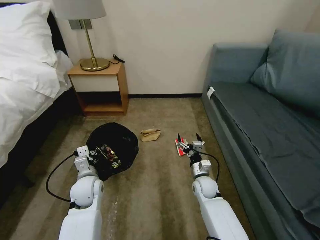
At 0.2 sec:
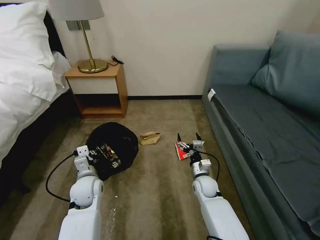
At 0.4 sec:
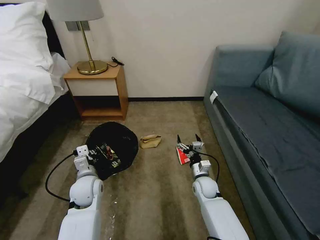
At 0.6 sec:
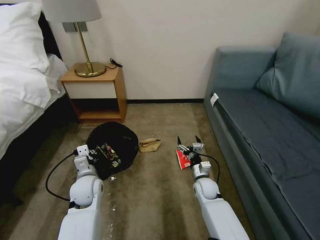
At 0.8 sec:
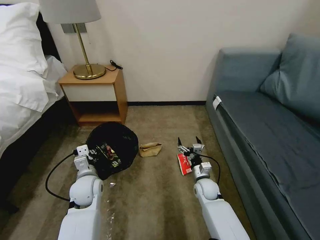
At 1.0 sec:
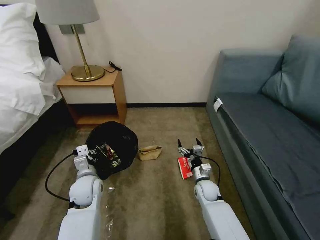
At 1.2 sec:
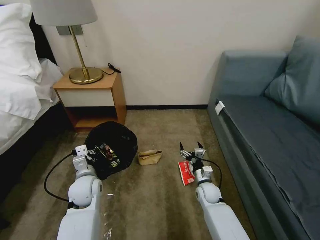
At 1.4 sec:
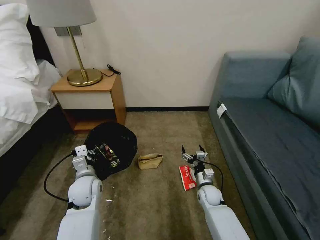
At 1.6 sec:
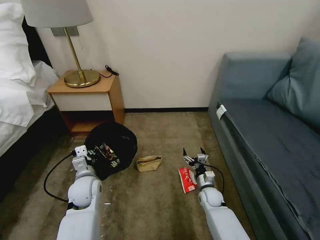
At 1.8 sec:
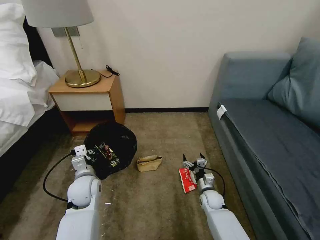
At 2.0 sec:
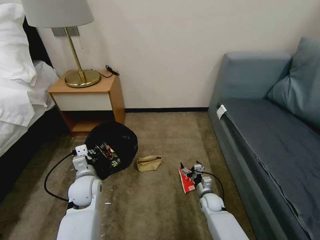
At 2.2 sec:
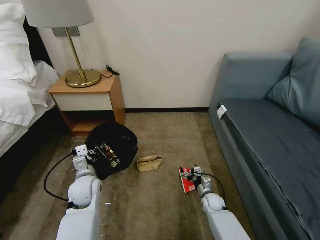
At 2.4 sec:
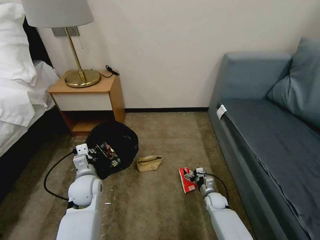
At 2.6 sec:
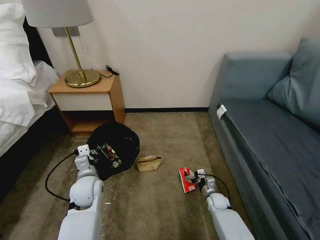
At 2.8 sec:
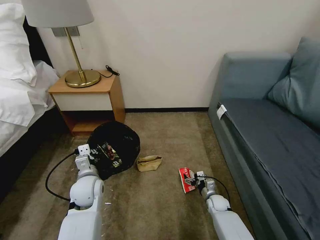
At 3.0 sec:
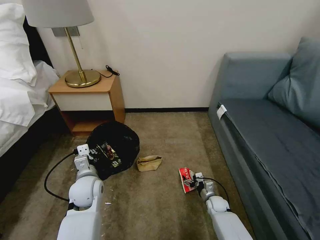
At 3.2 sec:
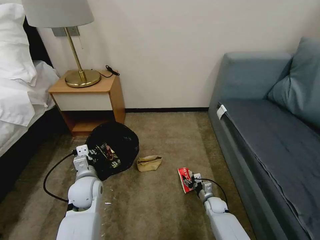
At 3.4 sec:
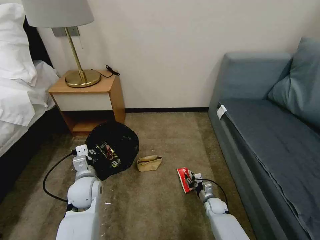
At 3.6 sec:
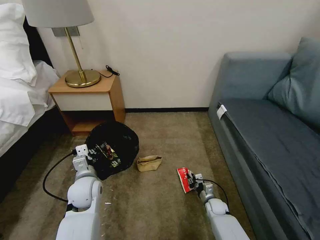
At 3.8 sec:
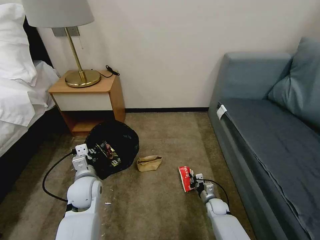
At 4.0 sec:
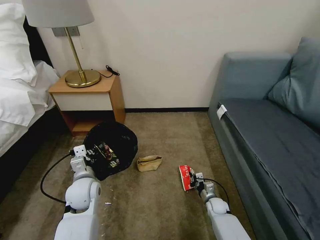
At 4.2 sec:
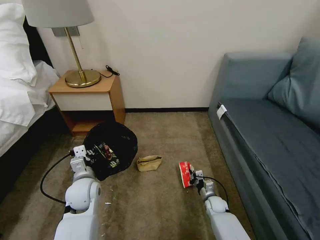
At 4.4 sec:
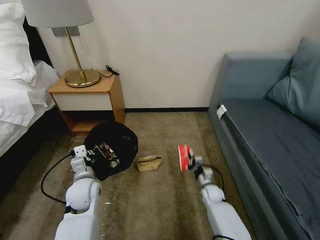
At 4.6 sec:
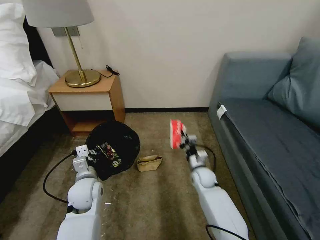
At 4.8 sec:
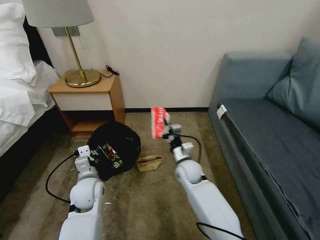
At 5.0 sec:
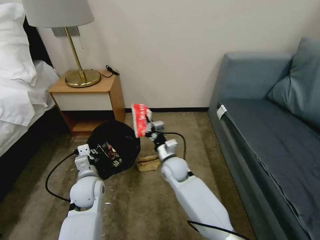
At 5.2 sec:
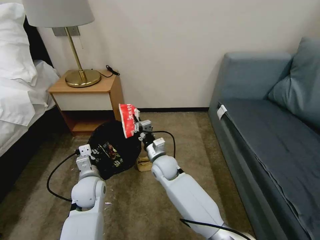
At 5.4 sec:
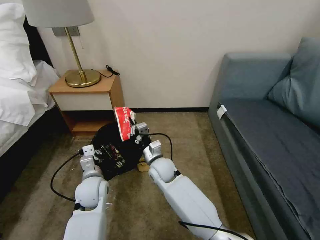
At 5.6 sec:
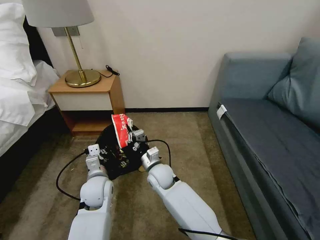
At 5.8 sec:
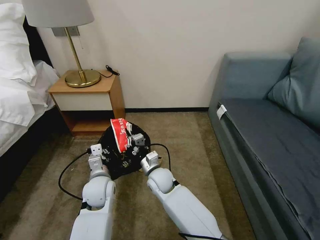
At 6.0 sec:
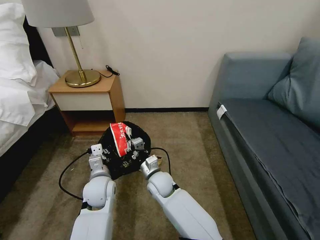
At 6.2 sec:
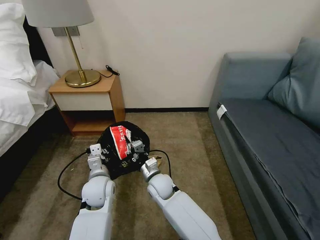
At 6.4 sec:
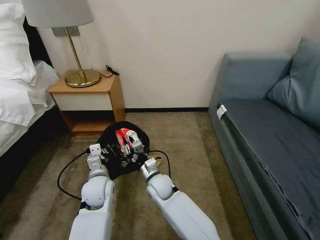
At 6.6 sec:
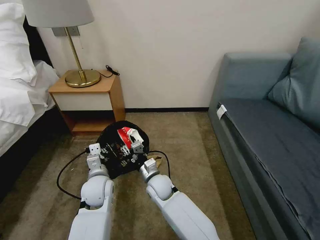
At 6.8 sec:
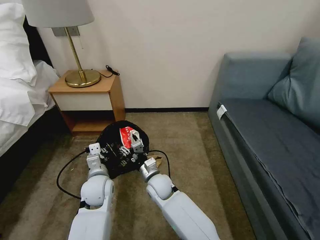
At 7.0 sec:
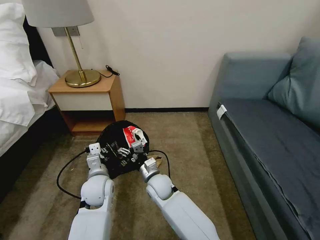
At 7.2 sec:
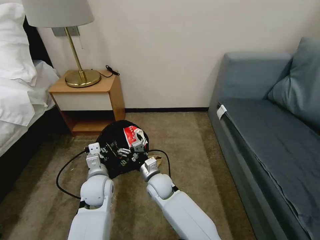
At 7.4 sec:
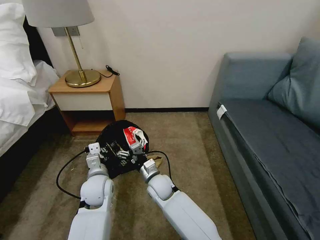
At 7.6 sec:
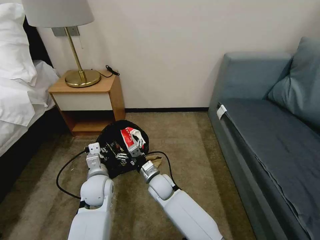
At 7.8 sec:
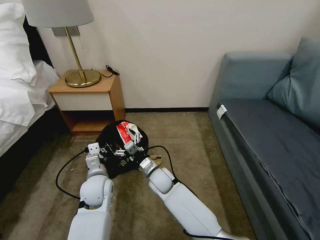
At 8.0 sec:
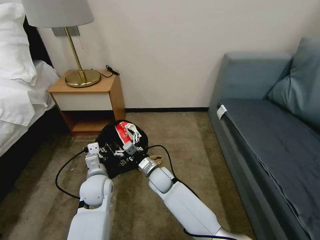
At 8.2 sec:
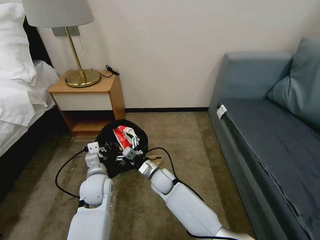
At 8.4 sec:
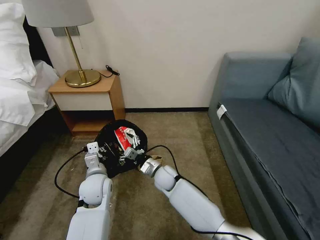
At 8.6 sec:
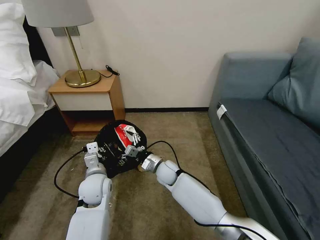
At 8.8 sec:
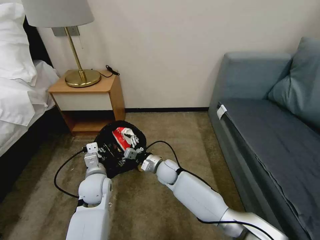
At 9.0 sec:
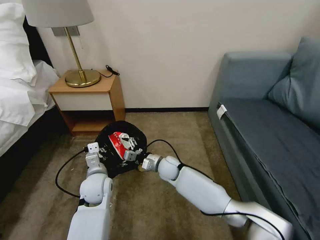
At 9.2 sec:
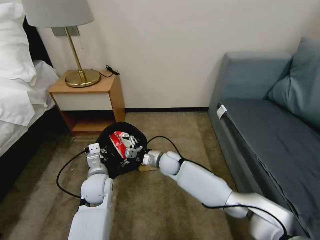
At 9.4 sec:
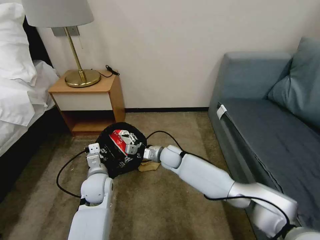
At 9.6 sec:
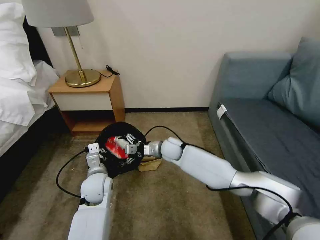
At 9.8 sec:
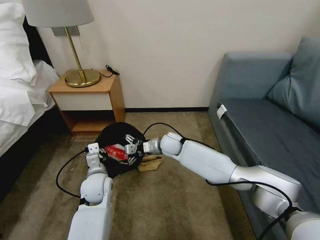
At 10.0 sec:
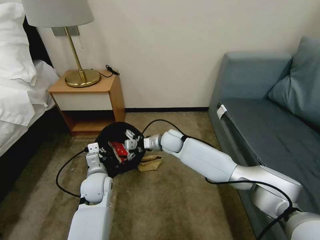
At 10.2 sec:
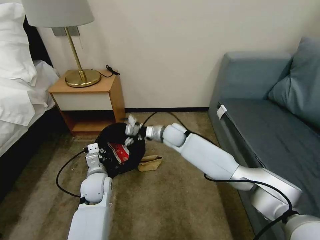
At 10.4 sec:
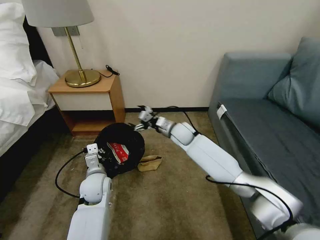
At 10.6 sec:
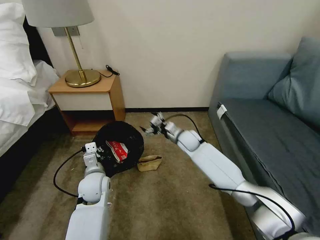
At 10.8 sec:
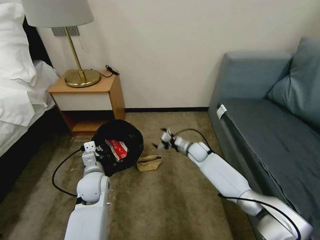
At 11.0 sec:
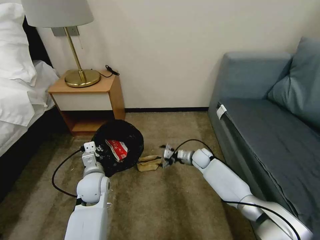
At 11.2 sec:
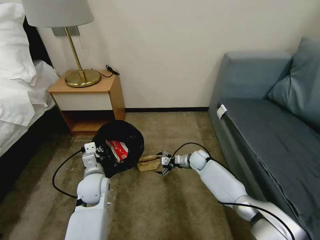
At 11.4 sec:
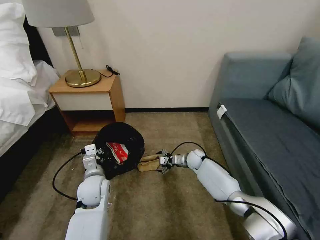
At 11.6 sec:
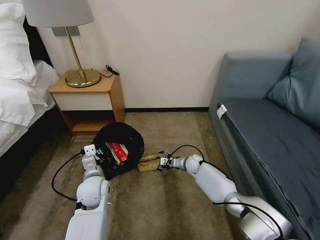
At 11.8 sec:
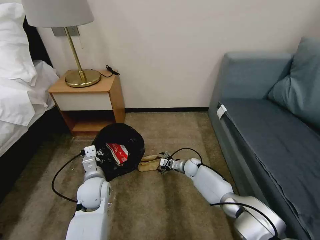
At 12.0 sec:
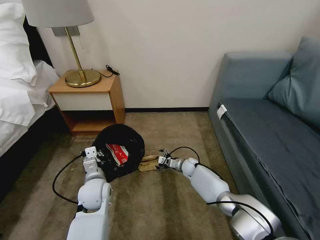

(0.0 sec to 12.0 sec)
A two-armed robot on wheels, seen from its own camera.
Task of the whole recording: Pick up the trash bin, then pick up the garbage on the floor and place it into the trash bin.
0.0 sec - 1.6 sec: The right gripper goes approximately 5 cm downward.
1.6 sec - 3.0 sec: The right gripper heads downward, covering approximately 5 cm.
3.0 sec - 4.4 sec: The right gripper moves some 5 cm, and closes up.
4.4 sec - 6.0 sec: The right gripper is displaced to the left and upward by approximately 30 cm.
6.0 sec - 7.6 sec: The right gripper opens up.
7.6 sec - 9.0 sec: The right gripper travels forward by about 10 cm.
9.0 sec - 10.4 sec: The right gripper shifts approximately 15 cm upward, forward and to the right.
10.4 sec - 12.0 sec: The right gripper goes some 20 cm downward.

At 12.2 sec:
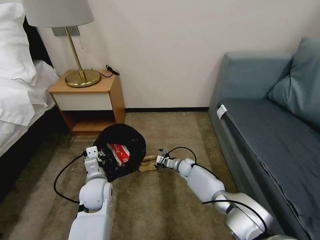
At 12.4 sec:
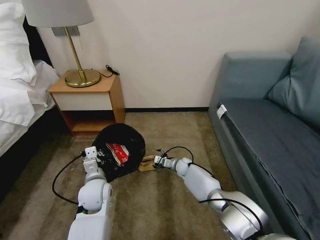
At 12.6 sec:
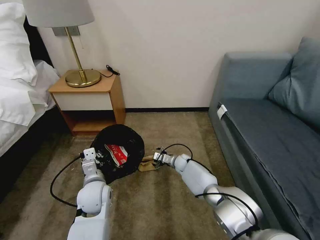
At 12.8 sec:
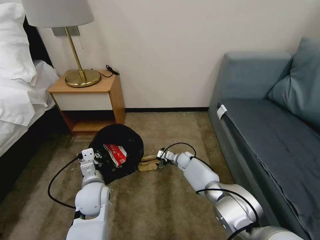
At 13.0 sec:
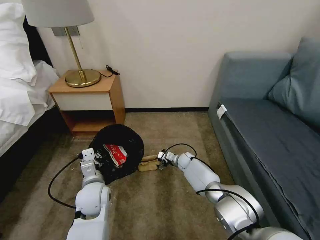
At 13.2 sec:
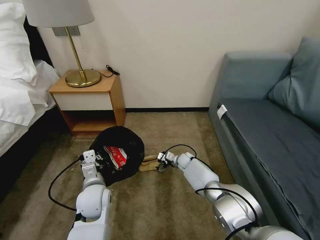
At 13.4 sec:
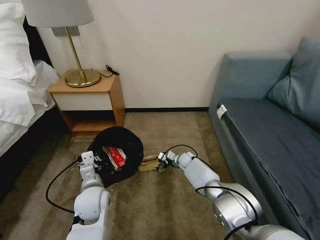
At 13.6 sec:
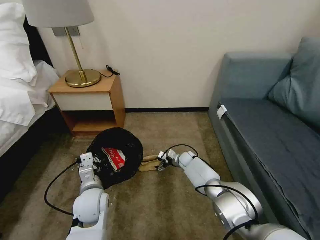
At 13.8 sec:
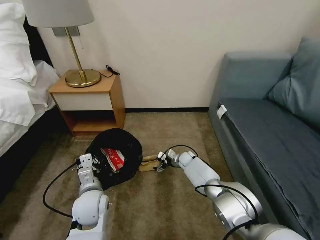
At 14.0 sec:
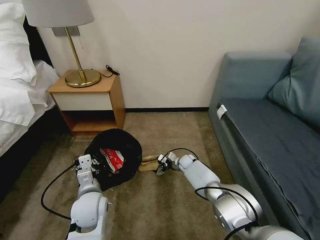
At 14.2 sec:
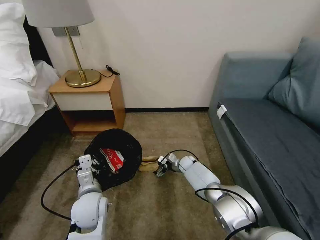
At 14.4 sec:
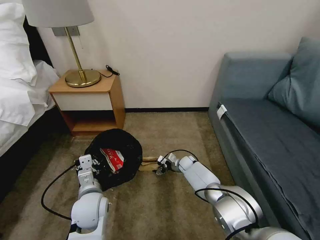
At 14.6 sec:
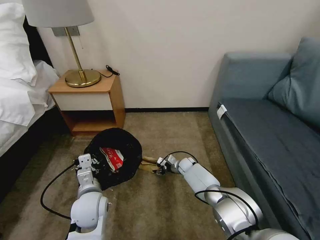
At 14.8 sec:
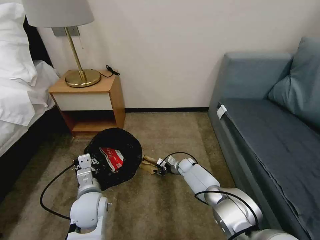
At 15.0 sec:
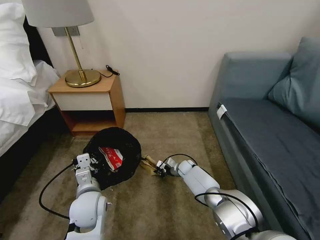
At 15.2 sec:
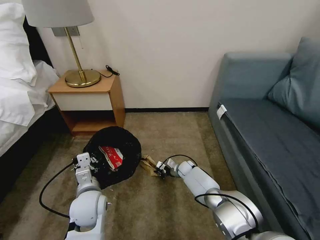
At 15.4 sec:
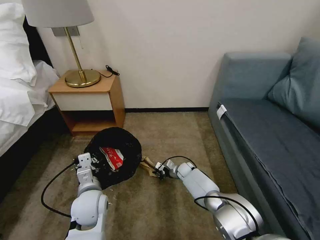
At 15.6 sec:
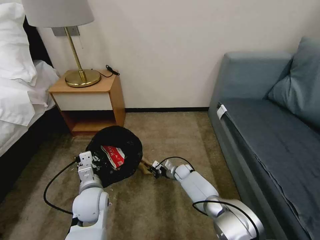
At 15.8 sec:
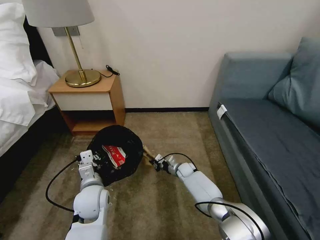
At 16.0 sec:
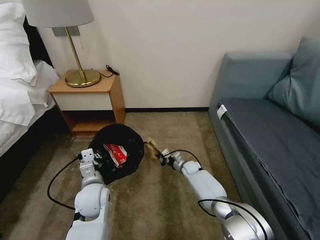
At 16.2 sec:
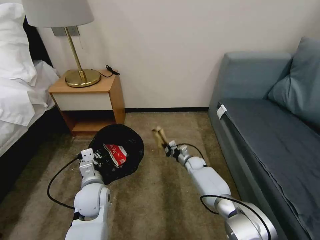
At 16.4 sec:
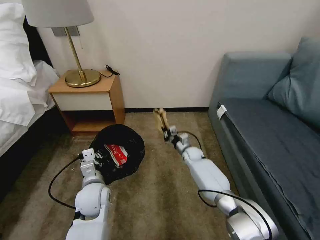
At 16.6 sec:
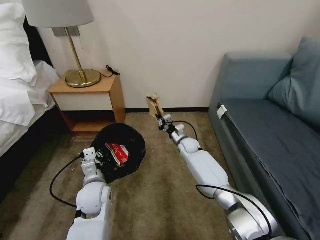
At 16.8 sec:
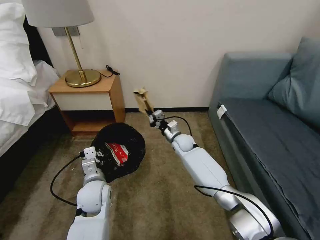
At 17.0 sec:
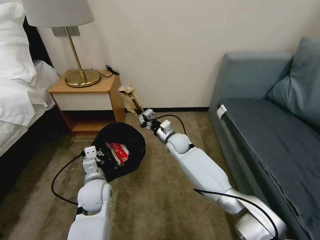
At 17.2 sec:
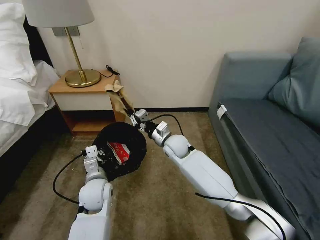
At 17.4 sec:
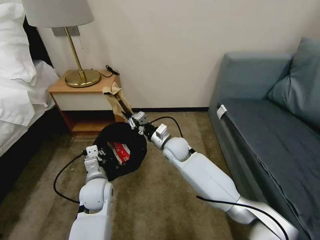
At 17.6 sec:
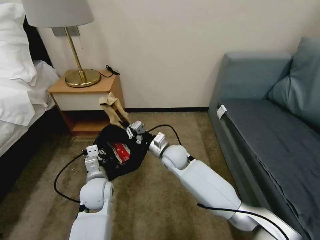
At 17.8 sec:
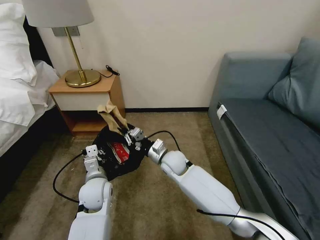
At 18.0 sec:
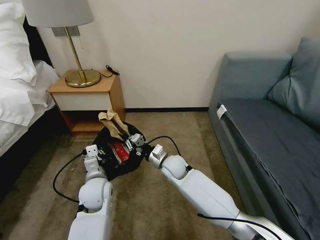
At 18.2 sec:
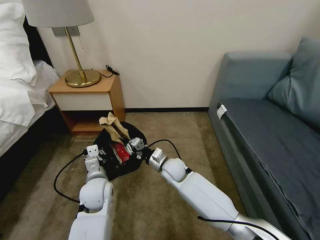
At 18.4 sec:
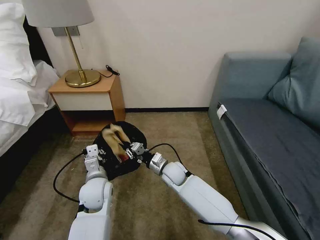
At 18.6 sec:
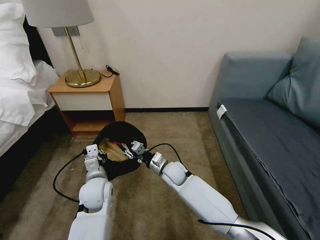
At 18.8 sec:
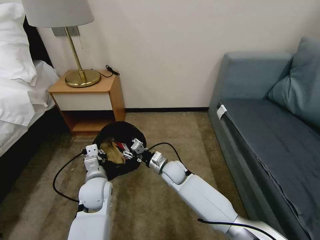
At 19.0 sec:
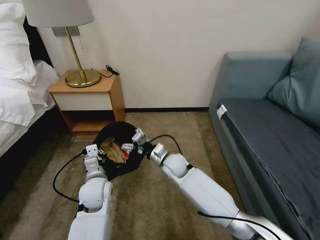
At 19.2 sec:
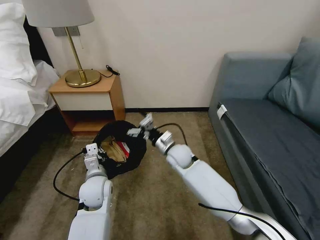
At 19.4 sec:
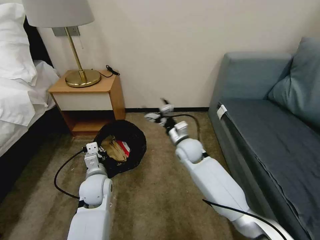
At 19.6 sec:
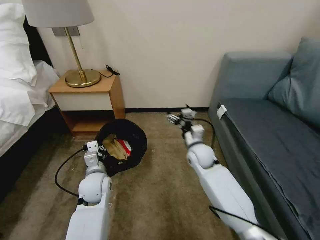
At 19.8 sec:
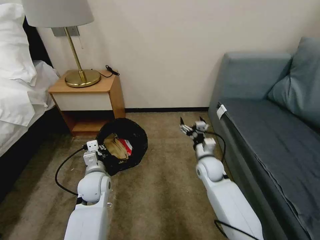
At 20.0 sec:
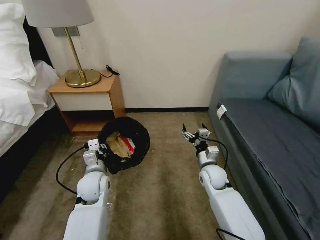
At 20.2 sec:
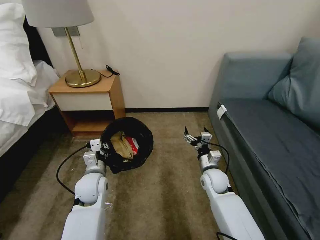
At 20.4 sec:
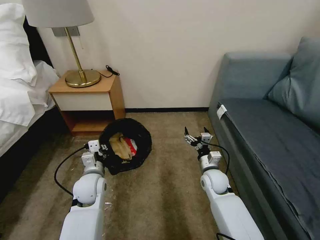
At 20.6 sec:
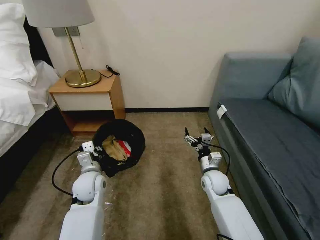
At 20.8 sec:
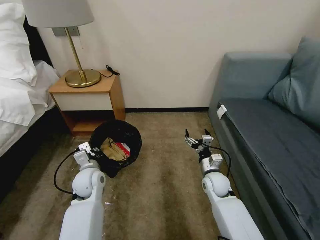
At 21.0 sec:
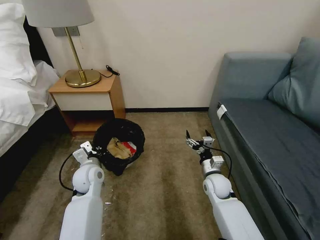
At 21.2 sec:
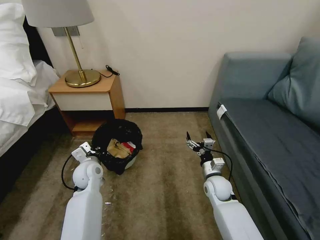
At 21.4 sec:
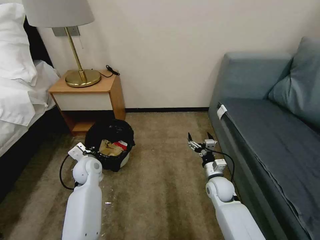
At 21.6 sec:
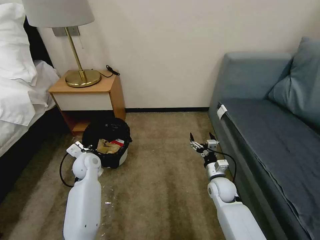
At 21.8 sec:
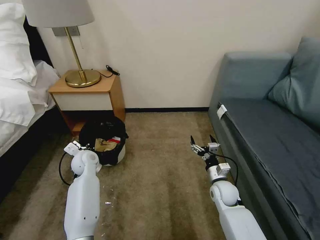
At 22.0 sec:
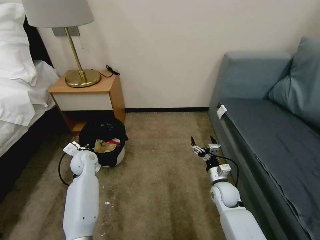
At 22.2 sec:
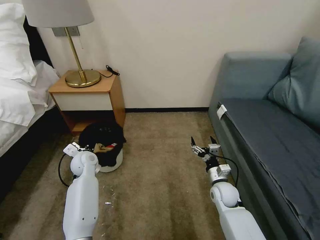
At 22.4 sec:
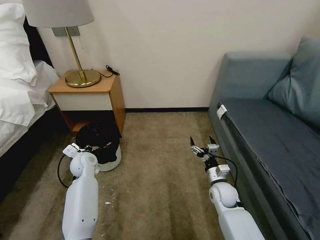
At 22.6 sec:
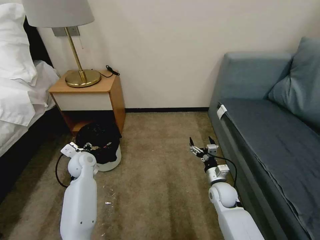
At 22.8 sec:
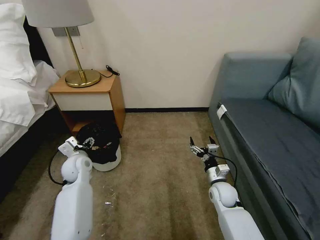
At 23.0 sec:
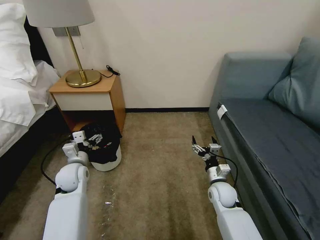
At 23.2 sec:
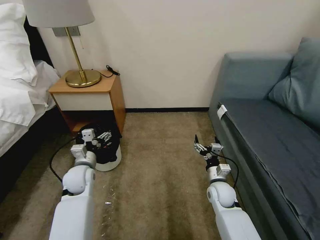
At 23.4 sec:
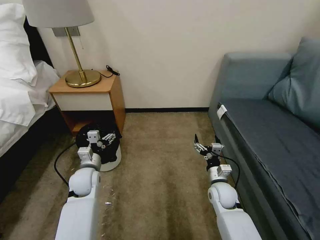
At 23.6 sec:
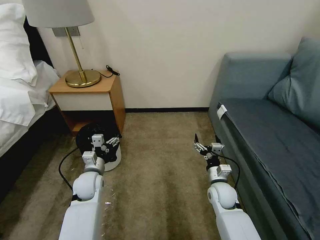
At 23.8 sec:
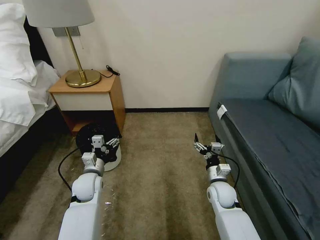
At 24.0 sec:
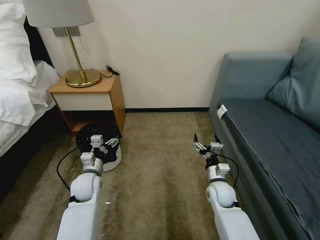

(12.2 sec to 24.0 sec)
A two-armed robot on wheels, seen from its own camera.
Task of the whole recording: Pick up the trash bin, then pick up the garbage on the floor and place it into the trash bin.
13.6 sec - 15.2 sec: The right gripper ends up roughly 5 cm from where it was, and closes.
15.2 sec - 16.6 sec: The right gripper goes about 15 cm upward.
16.6 sec - 18.2 sec: The right gripper moves backward and to the left, approximately 15 cm.
18.2 sec - 19.6 sec: The right gripper moves to the right and upward, roughly 10 cm, and opens its fingers.
19.6 sec - 21.0 sec: The right gripper heads downward, backward and to the right, covering about 15 cm.
21.0 sec - 22.6 sec: The left gripper shifts about 5 cm forward, and opens up.
22.6 sec - 24.0 sec: The left gripper moves backward, some 5 cm.
